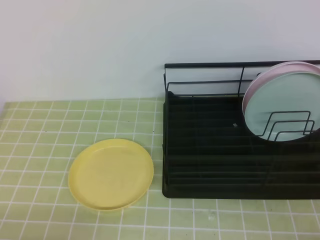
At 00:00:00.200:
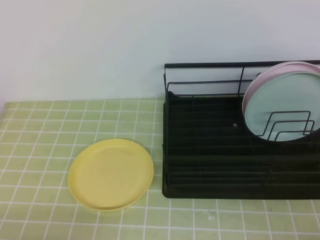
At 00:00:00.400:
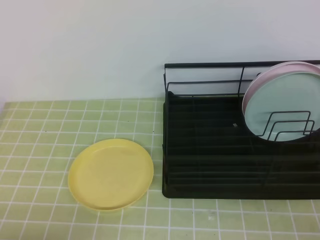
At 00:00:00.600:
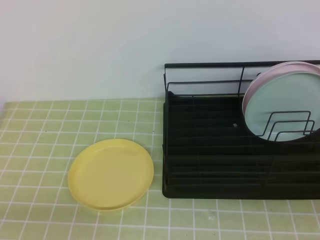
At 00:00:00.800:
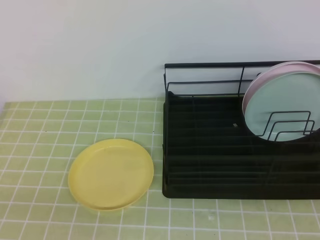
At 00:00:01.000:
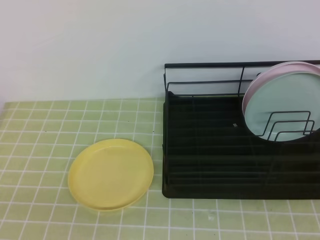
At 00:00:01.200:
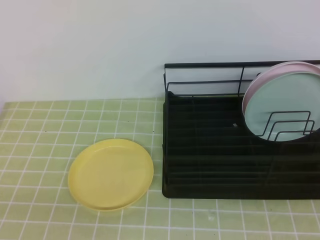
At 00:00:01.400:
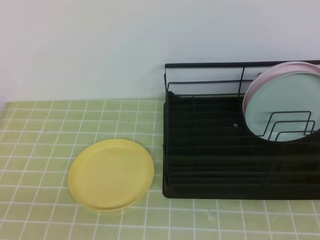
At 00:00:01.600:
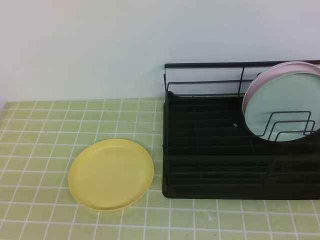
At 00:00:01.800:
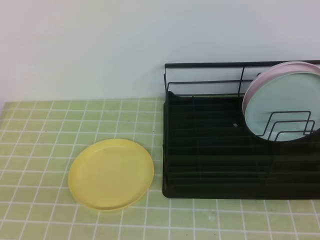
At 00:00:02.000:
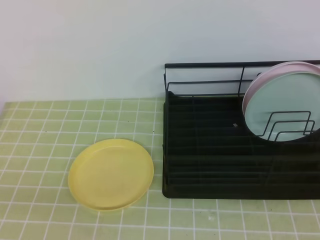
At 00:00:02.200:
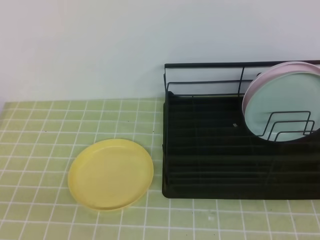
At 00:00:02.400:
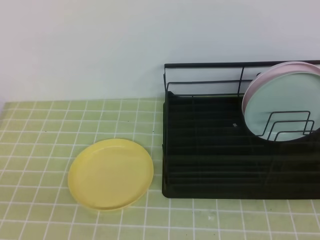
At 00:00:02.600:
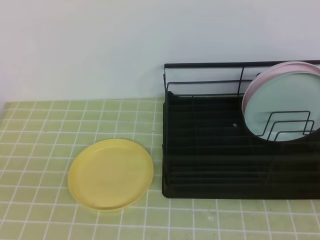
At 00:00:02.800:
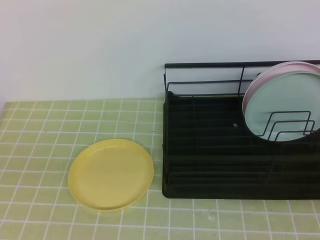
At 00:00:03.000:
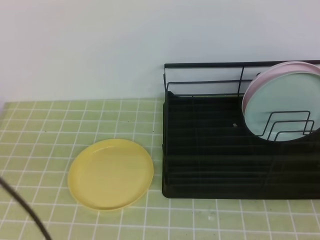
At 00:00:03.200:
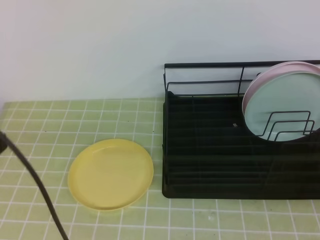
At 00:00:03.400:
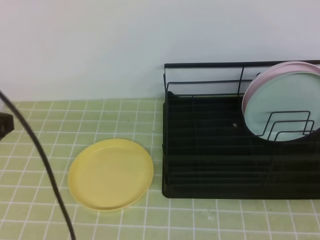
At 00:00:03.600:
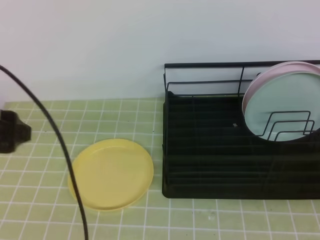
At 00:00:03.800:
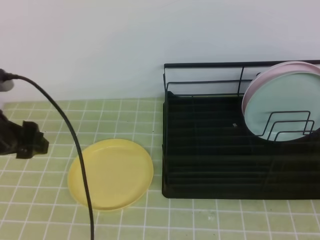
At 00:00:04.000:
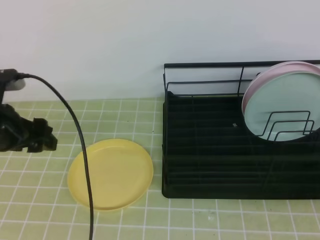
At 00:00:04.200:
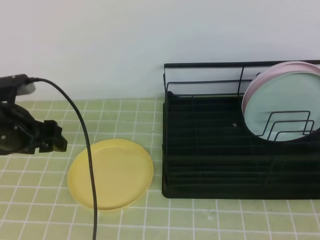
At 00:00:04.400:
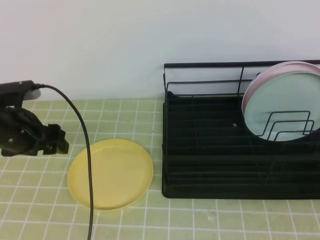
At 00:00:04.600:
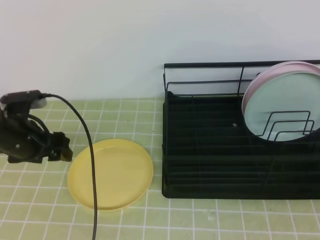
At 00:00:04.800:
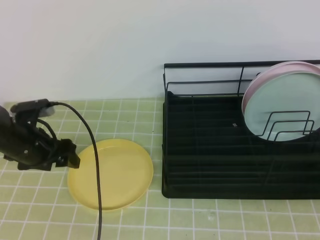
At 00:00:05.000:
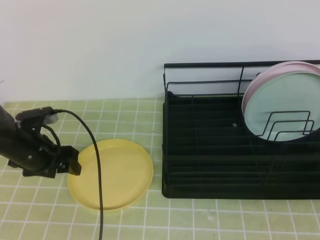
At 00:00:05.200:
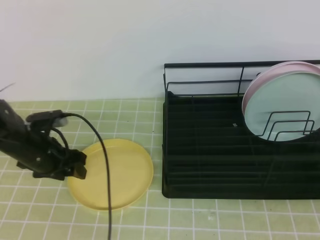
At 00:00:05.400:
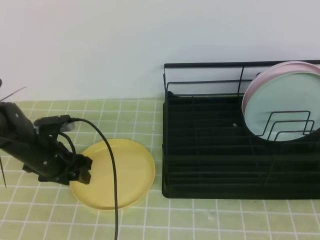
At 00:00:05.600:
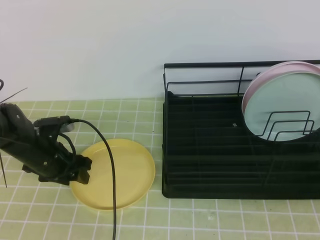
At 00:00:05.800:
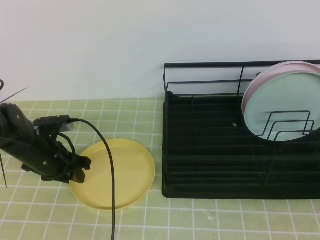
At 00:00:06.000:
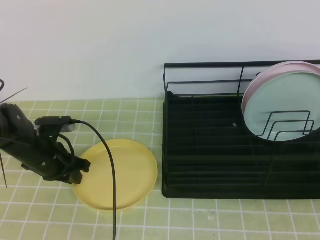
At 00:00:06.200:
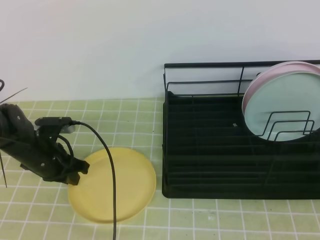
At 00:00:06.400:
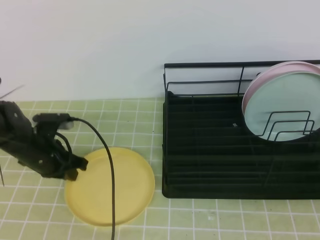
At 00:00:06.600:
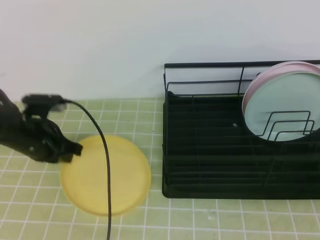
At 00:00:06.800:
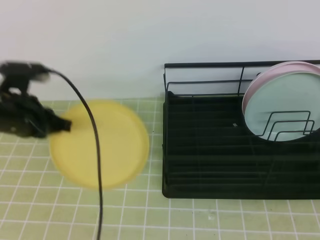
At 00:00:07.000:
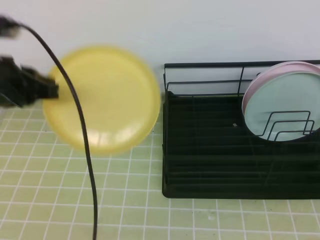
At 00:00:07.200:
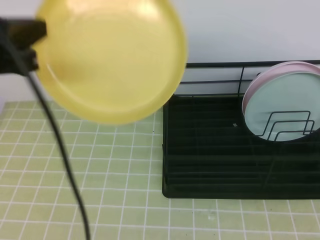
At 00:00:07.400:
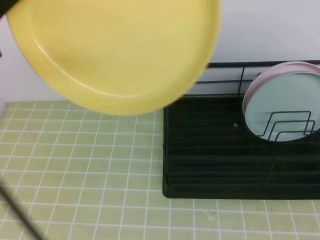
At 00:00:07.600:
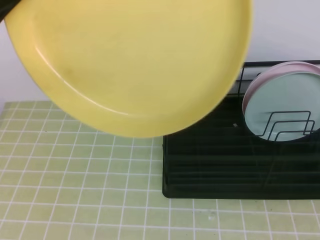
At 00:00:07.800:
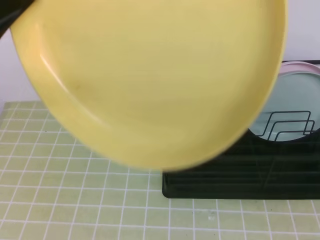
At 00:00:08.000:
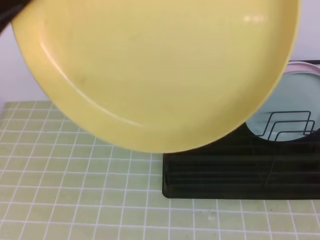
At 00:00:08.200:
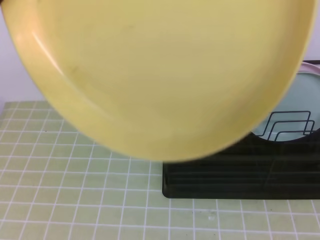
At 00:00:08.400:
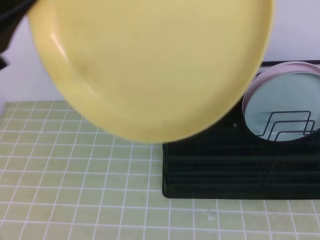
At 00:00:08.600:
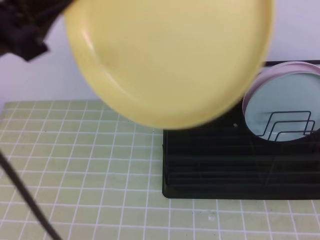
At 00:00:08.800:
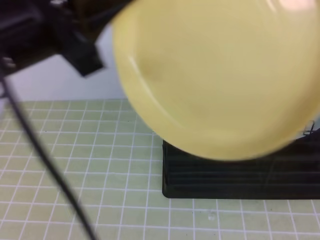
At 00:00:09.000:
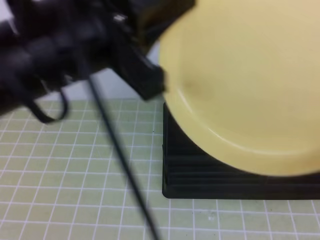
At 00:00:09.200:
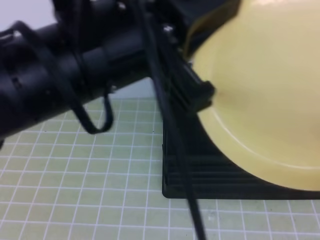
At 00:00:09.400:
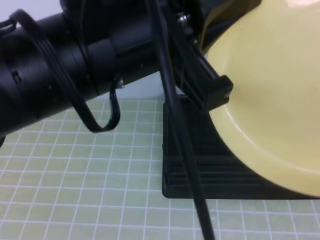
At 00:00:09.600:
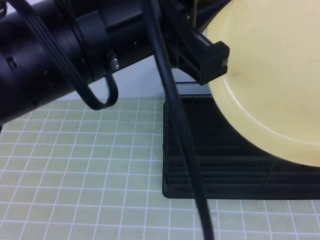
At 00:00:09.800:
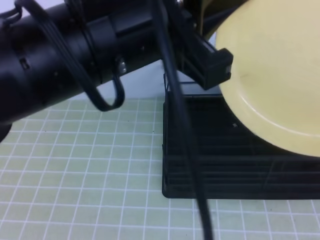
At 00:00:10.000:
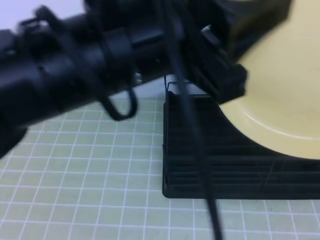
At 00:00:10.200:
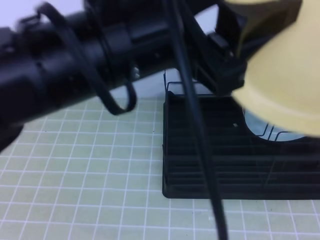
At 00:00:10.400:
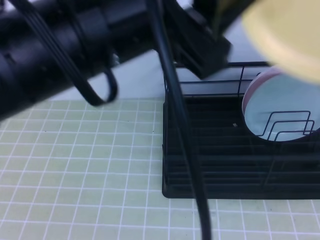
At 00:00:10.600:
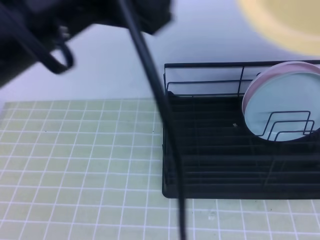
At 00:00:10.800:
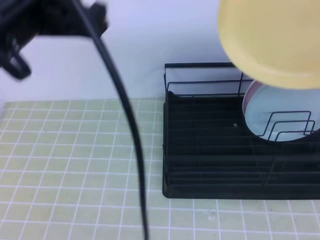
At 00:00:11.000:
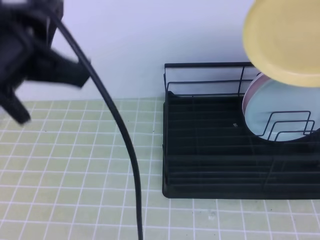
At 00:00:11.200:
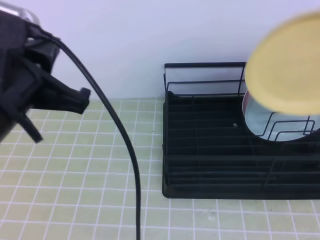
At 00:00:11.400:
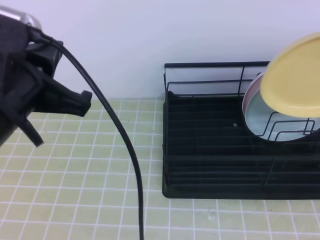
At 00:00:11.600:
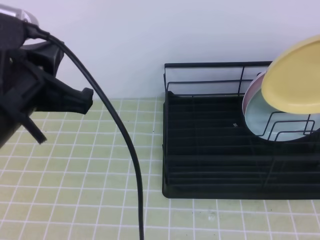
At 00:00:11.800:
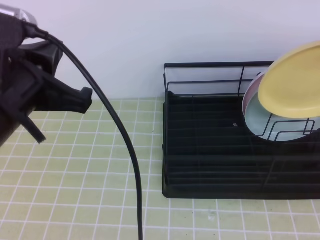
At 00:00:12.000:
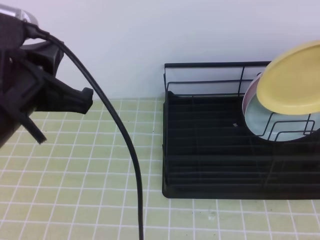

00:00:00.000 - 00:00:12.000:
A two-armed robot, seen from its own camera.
Step, 00:00:00.000 - 00:00:05.000: Left grab the yellow plate.
Step, 00:00:05.400 - 00:00:08.200: Right receive the plate.
Step, 00:00:08.400 - 00:00:11.200: Right place it at the front of the shelf.
00:00:01.600 - 00:00:03.000: The left gripper shifts roughly 10 cm upward and forward, and opens its fingers.
00:00:03.000 - 00:00:04.400: The left gripper is displaced forward and downward by approximately 25 cm, and opens its fingers.
00:00:04.400 - 00:00:06.000: The left gripper heads downward, covering some 10 cm, and closes up.
00:00:06.000 - 00:00:07.600: The left gripper moves upward and backward, roughly 40 cm; the right gripper travels upward, to the left and backward by about 15 cm, and opens up.
00:00:07.600 - 00:00:09.000: The right gripper opens. The left gripper goes roughly 10 cm to the right.
00:00:09.000 - 00:00:10.400: The right gripper moves forward, approximately 5 cm, and closes up, while the left gripper opens up.
00:00:10.400 - 00:00:12.000: The right gripper goes roughly 25 cm forward, while the left gripper goes roughly 10 cm to the left and downward, and closes.

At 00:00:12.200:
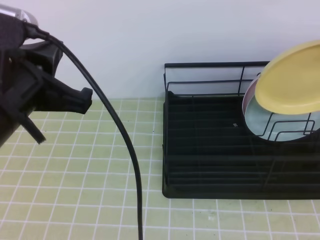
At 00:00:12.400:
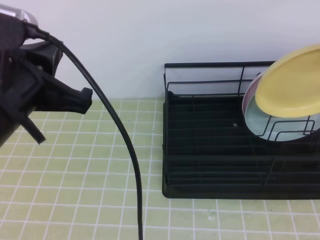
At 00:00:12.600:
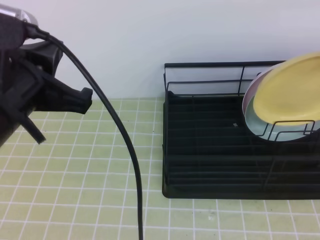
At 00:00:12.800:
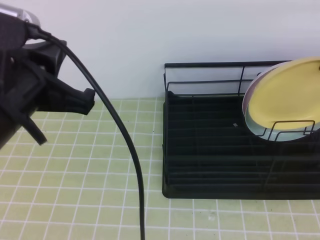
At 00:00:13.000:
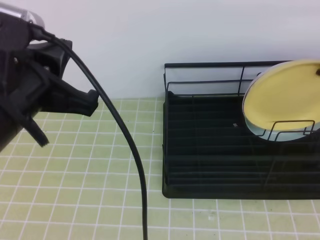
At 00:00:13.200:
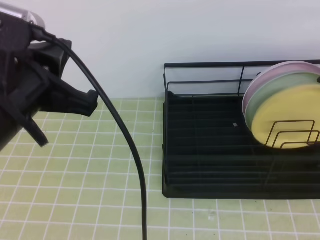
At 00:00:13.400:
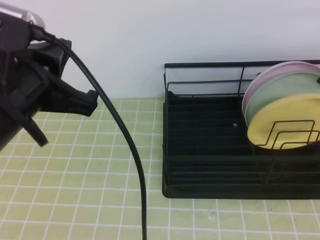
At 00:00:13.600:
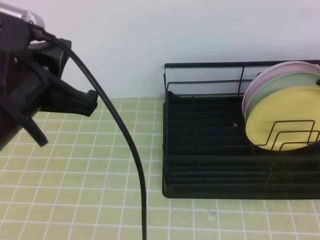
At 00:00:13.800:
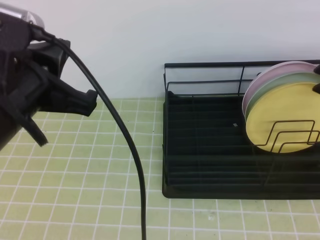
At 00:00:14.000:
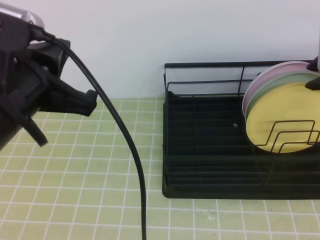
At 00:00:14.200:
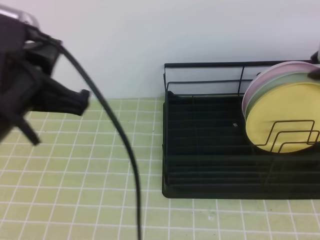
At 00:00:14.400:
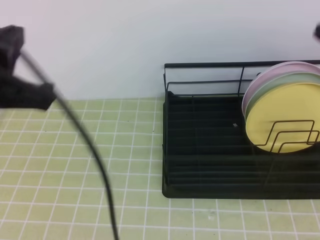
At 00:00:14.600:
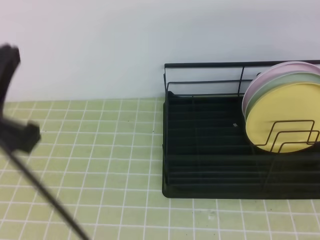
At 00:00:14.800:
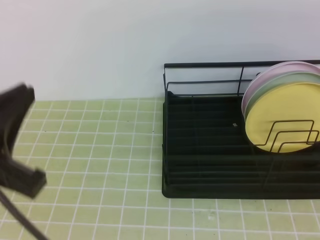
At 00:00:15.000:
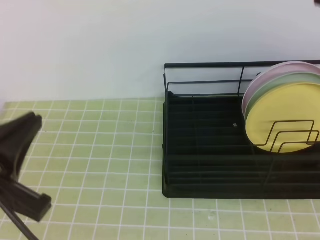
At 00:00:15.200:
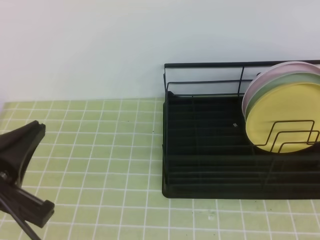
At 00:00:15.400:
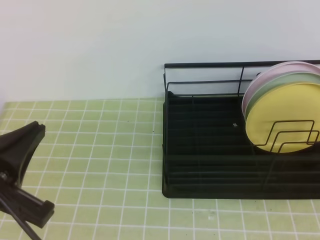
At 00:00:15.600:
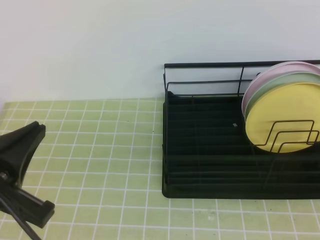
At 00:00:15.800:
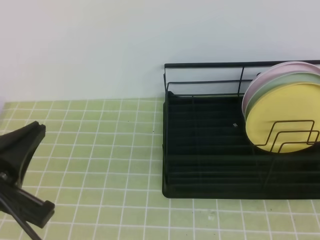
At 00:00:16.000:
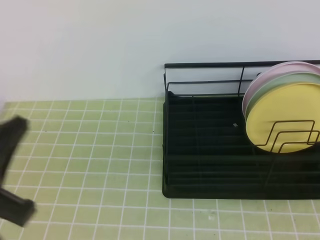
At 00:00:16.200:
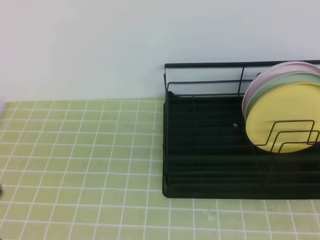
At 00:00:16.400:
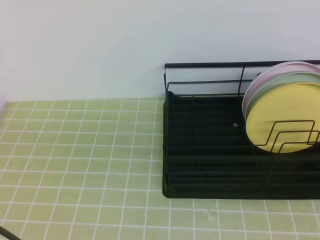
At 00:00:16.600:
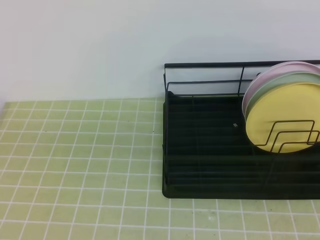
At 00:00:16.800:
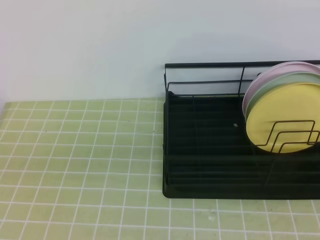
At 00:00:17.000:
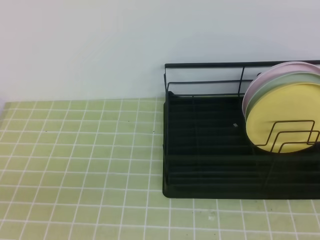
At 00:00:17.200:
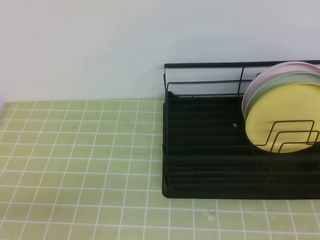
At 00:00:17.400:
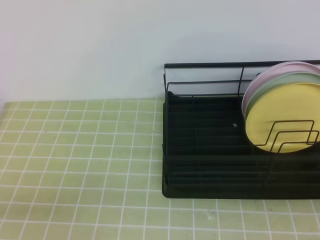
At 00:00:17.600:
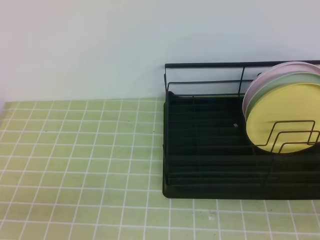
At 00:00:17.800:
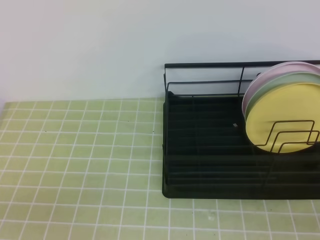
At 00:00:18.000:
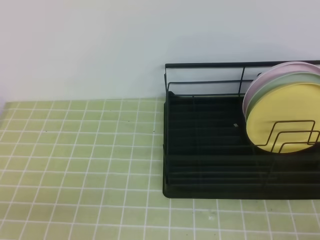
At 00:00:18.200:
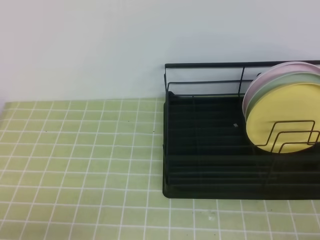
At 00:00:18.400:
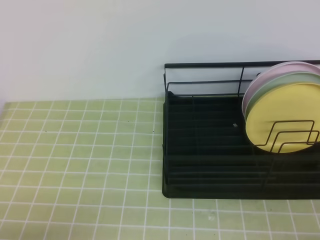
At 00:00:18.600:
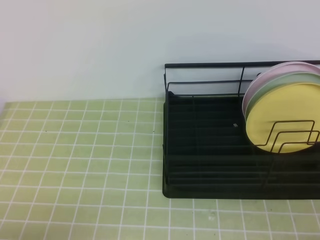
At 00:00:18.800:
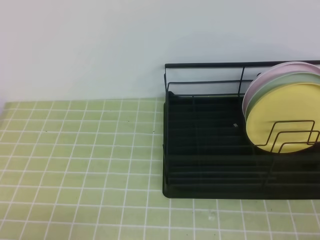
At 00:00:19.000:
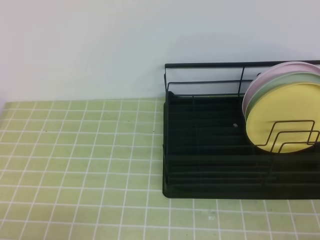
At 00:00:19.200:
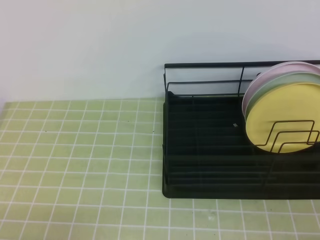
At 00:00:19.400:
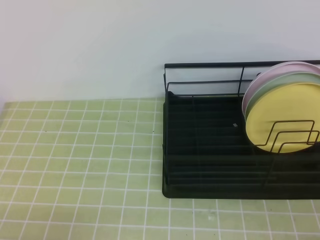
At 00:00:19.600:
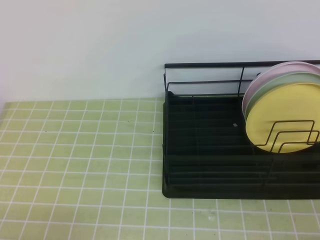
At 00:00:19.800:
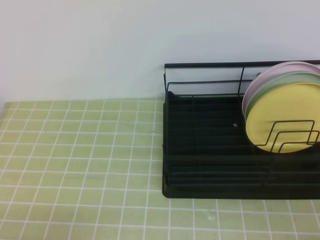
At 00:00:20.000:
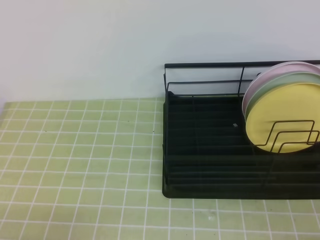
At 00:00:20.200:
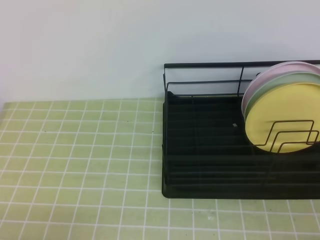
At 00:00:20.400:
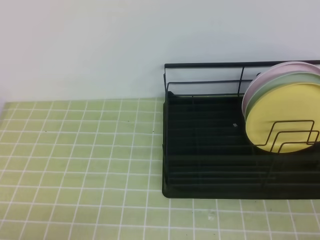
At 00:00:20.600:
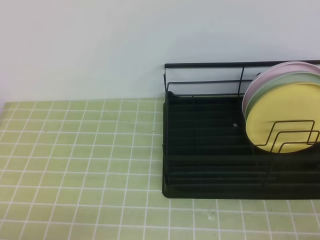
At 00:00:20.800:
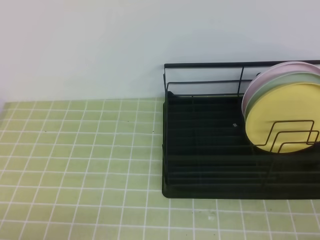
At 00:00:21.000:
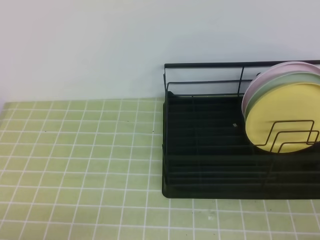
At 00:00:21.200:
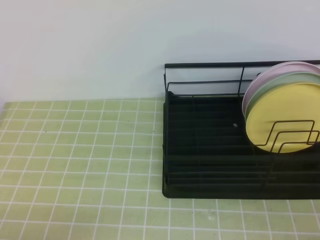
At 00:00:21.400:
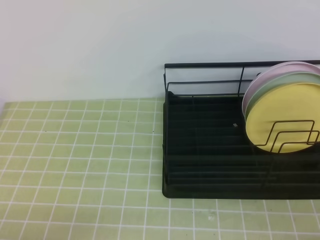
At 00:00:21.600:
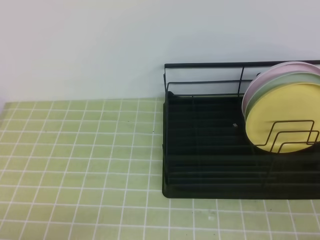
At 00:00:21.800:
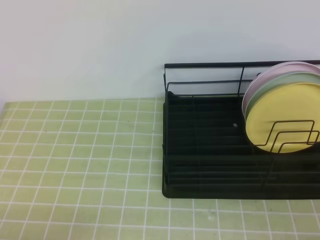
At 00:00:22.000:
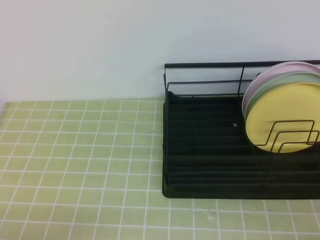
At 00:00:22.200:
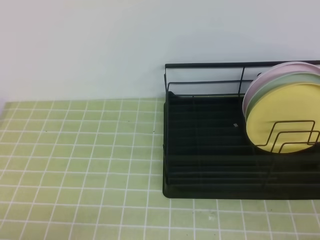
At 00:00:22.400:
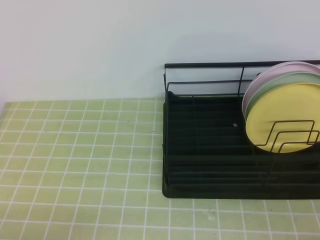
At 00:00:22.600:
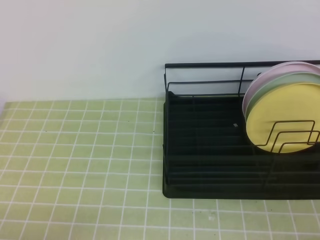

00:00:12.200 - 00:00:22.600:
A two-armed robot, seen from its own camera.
00:00:12.200 - 00:00:13.600: The right gripper opens its fingers.
00:00:13.600 - 00:00:15.200: The right gripper travels backward by roughly 15 cm, and closes, while the left gripper is displaced backward and downward by some 10 cm.
00:00:15.200 - 00:00:16.600: The left gripper goes approximately 5 cm to the left.
00:00:16.600 - 00:00:18.200: The left gripper moves downward, some 10 cm.
00:00:21.200 - 00:00:22.600: Both grippers stay about where they are.
